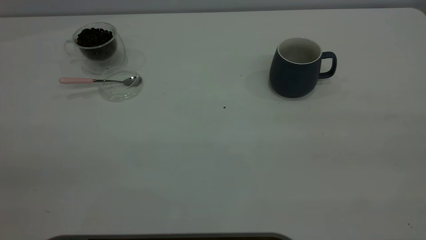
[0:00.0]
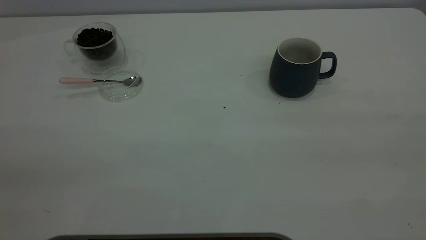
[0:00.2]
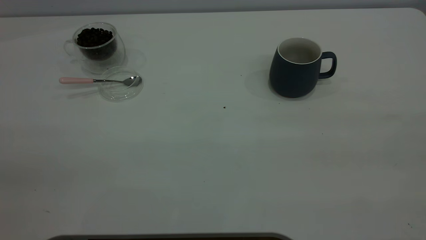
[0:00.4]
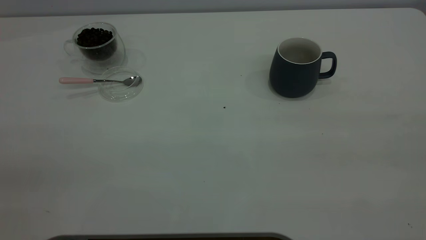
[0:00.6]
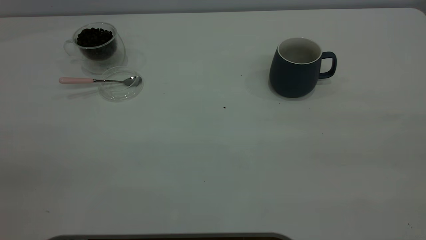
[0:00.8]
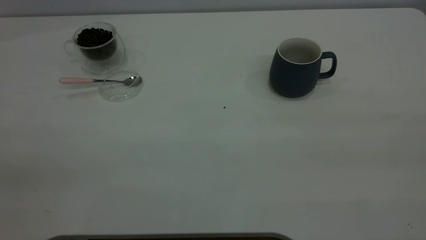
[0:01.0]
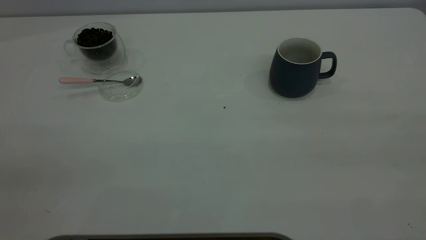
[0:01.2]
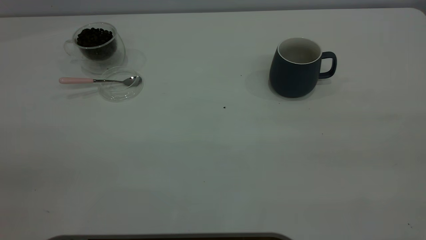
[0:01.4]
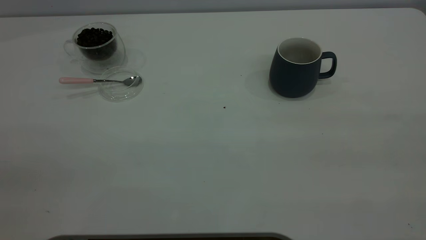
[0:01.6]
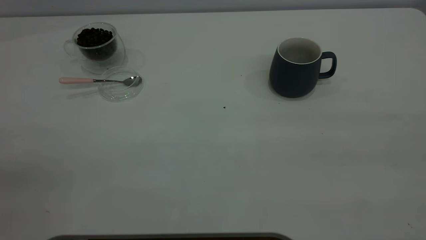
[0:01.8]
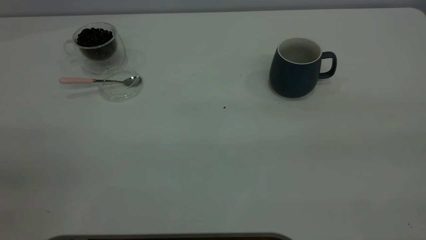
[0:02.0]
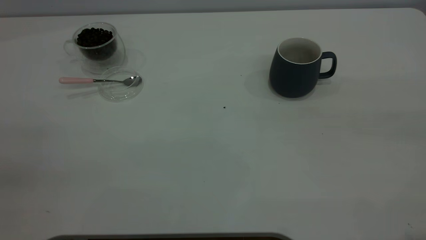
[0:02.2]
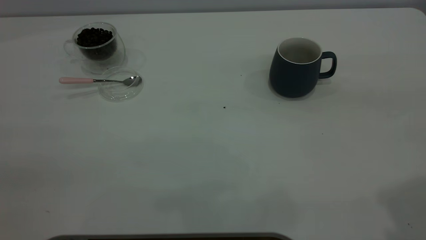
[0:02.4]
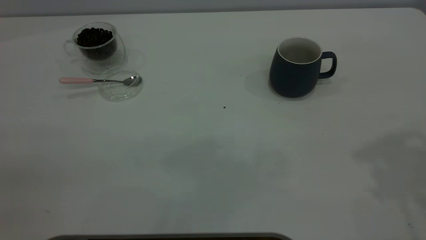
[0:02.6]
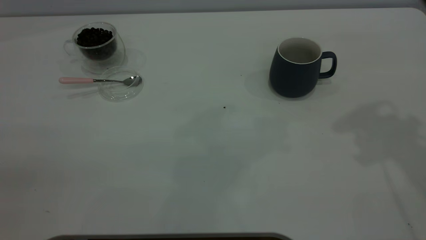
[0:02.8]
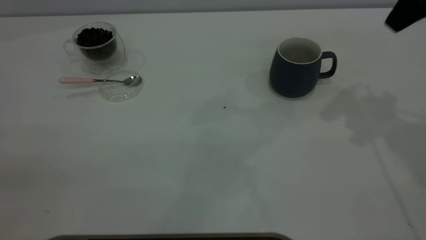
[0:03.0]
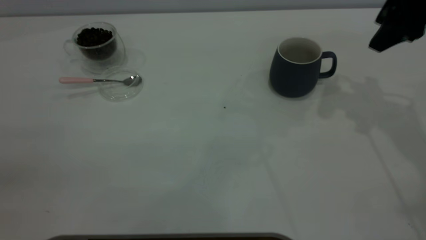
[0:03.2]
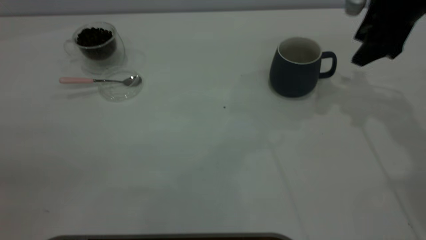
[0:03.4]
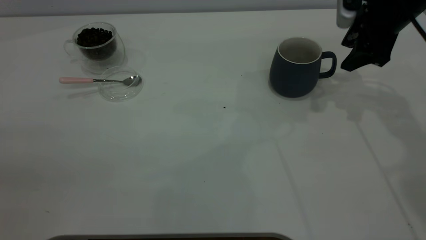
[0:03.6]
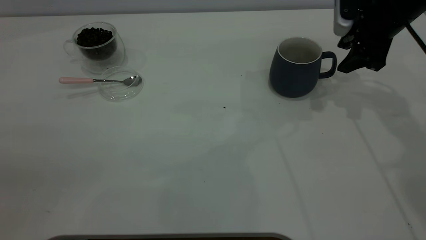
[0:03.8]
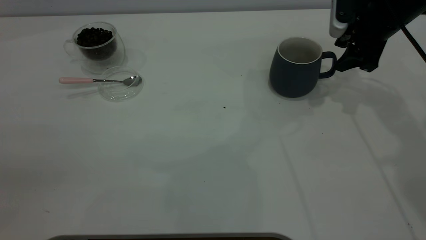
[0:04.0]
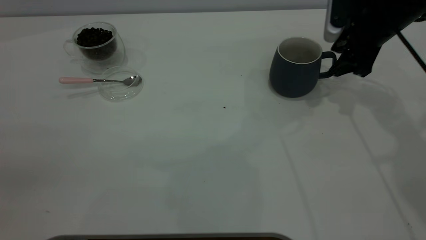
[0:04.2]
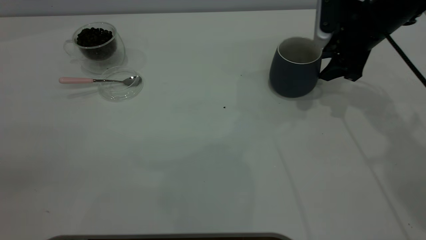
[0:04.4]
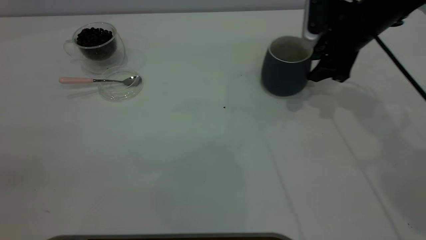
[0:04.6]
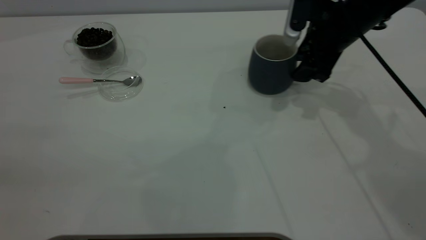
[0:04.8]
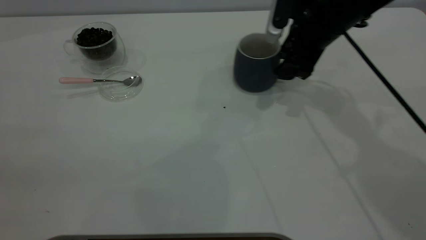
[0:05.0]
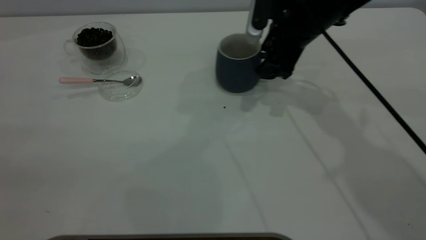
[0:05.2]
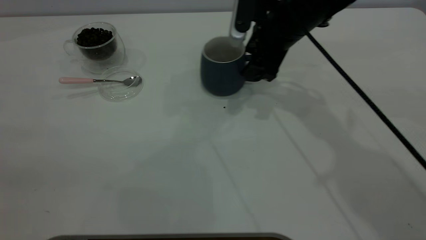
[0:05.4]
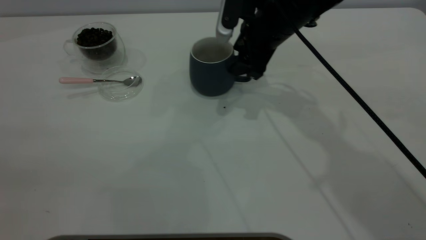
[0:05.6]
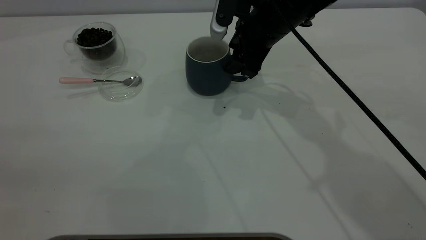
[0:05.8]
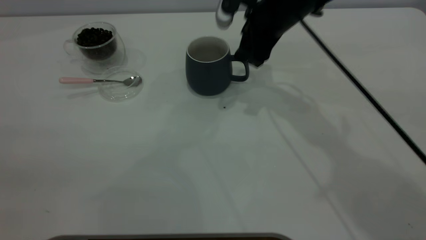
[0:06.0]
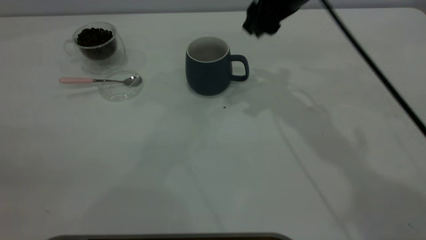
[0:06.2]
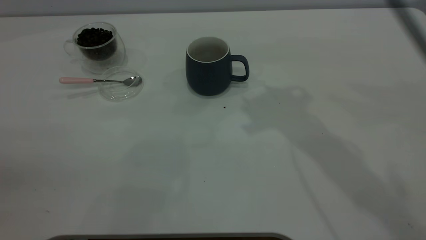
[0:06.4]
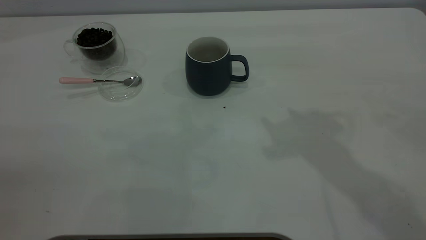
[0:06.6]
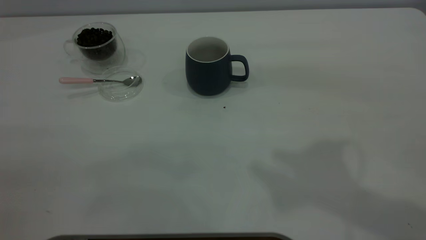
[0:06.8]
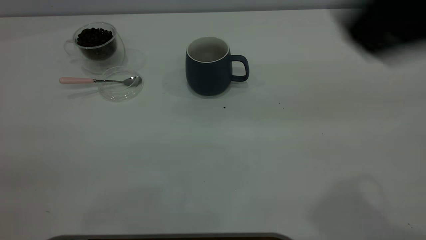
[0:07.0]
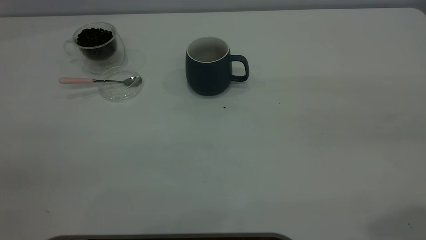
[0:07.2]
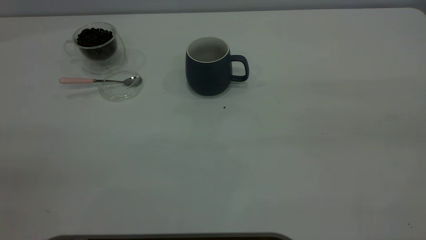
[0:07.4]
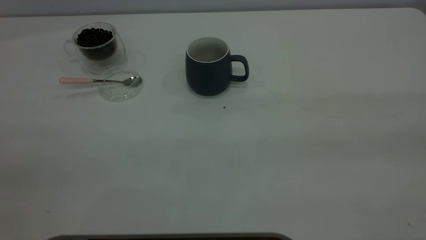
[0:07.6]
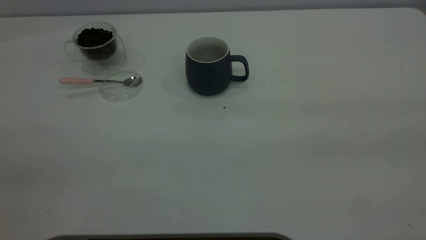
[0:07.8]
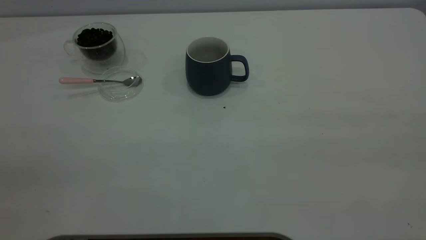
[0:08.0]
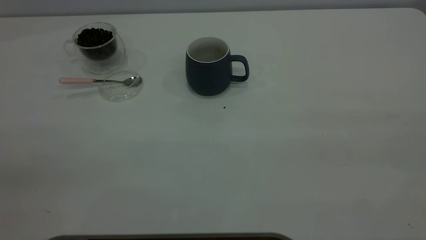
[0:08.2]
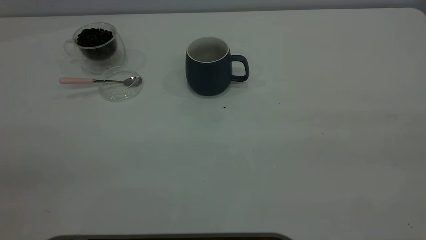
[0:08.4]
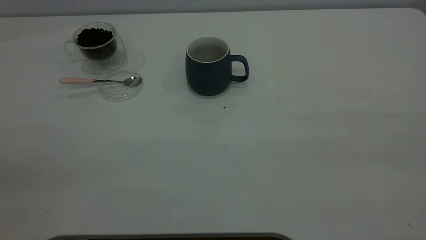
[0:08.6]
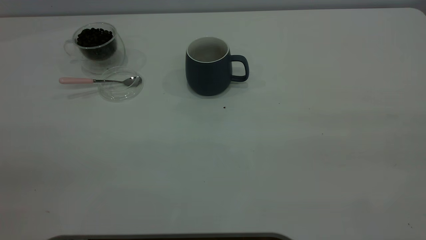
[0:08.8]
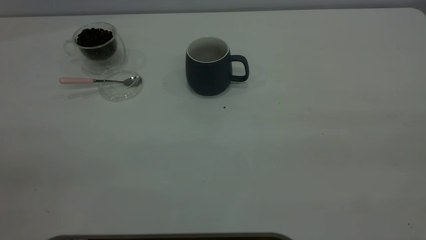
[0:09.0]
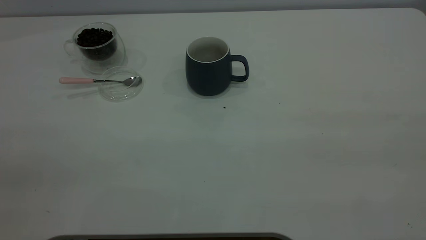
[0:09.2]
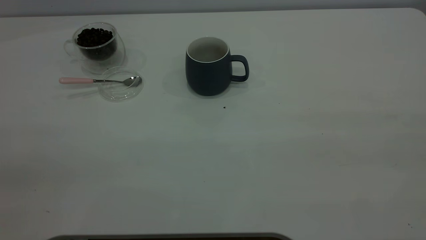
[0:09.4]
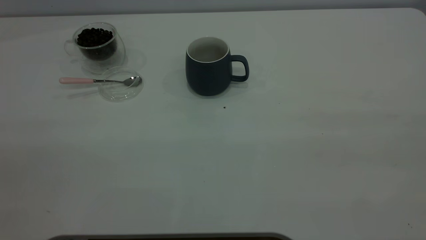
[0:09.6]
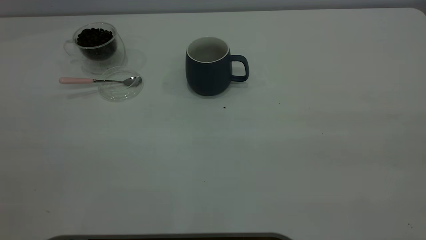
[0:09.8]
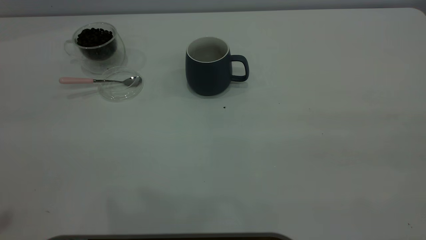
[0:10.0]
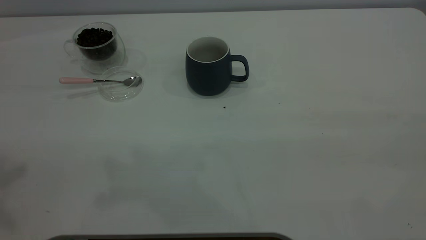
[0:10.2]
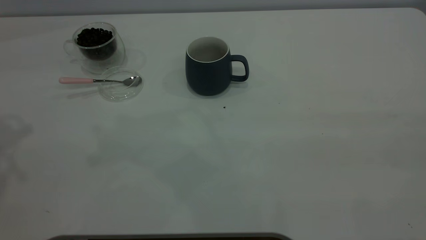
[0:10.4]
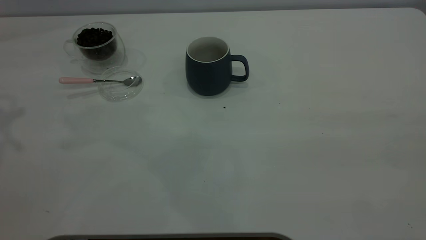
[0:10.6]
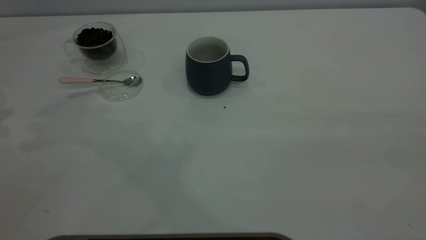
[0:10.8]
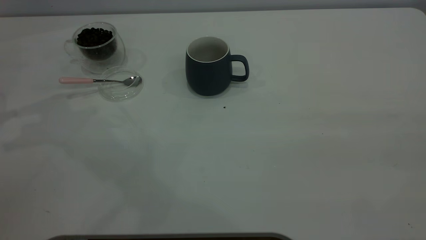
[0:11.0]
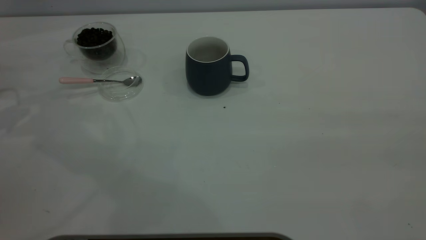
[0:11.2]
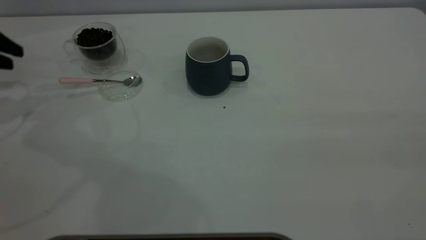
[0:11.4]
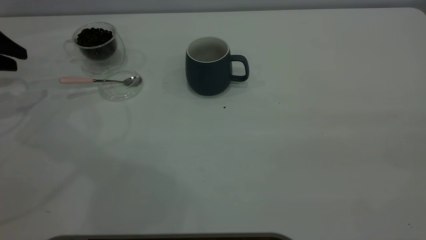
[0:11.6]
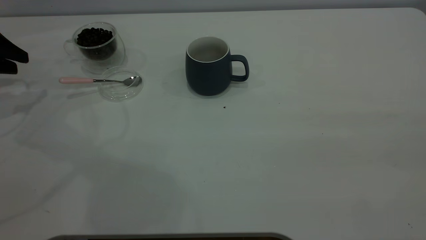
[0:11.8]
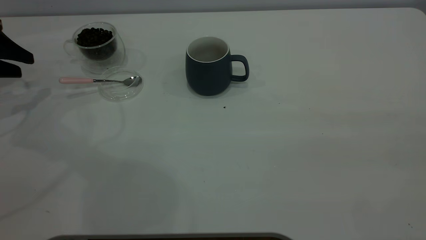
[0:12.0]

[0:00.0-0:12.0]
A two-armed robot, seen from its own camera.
Task of the whole recording: the right gripper place the grey cup in the center of the table, the left gripper take the pink spoon from the cup lid and scoop out the coffee beans from the coffee cup and put them into the grey cup, the left gripper put the spoon back into the cup lid.
Step, 0:00.0 to 0:06.2: Move the cup to the center of view.
0:00.0 to 0:01.6: Neither gripper changes place.
0:01.6 to 0:03.0: The right gripper travels forward by about 35 cm.
0:03.0 to 0:04.4: The right gripper shifts roughly 15 cm downward and forward.
0:04.4 to 0:06.0: The right gripper travels to the left by about 15 cm.
0:06.0 to 0:07.6: The right gripper moves backward, to the right and upward, roughly 50 cm.
0:10.4 to 0:12.0: The left gripper moves downward and forward, approximately 25 cm.

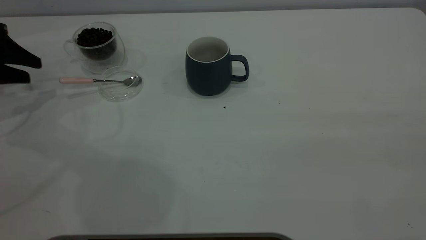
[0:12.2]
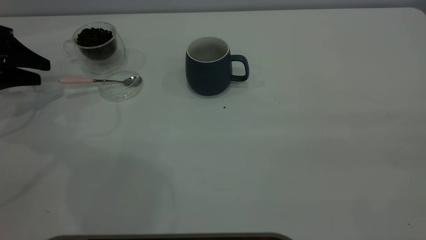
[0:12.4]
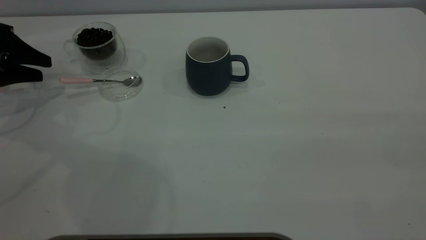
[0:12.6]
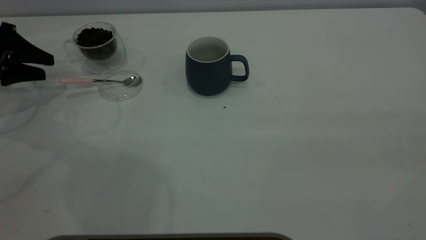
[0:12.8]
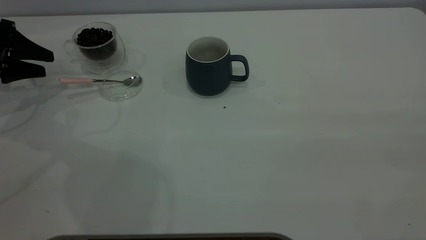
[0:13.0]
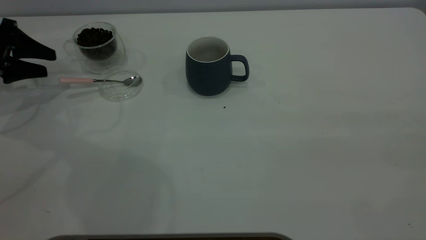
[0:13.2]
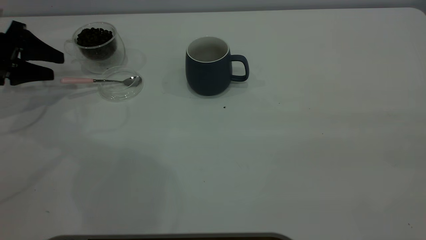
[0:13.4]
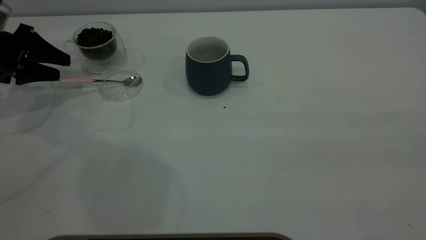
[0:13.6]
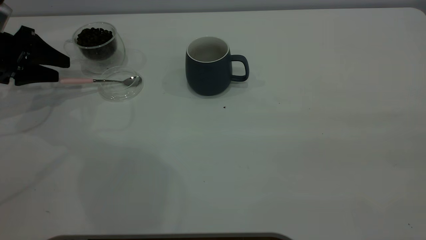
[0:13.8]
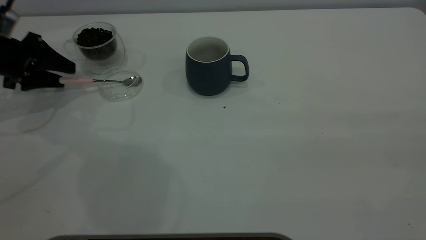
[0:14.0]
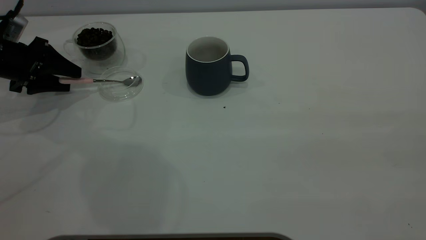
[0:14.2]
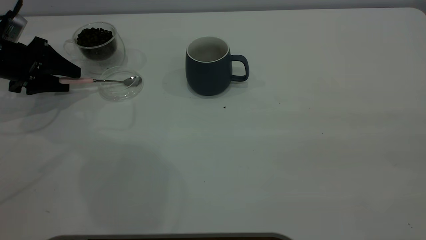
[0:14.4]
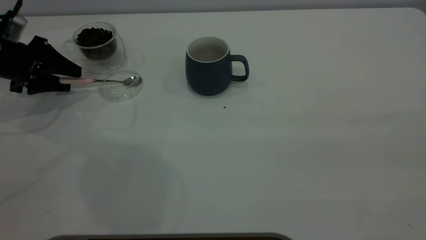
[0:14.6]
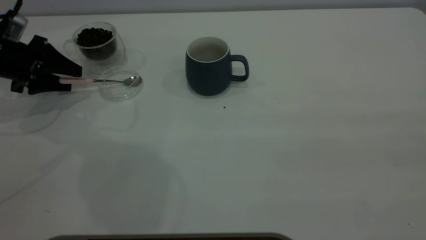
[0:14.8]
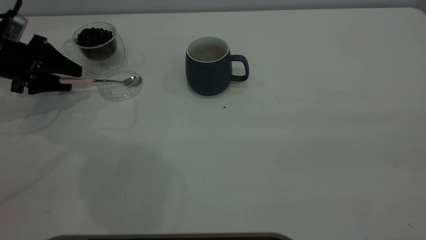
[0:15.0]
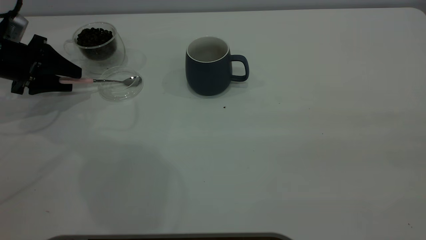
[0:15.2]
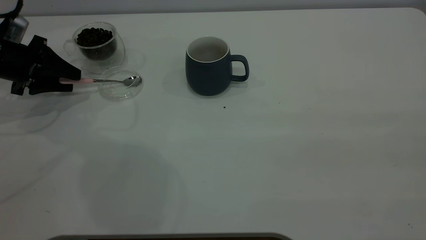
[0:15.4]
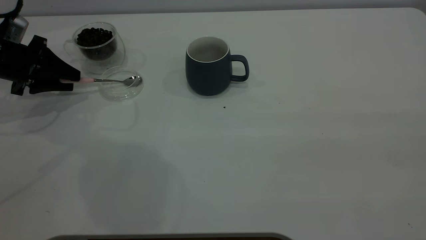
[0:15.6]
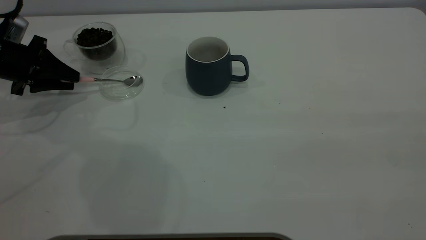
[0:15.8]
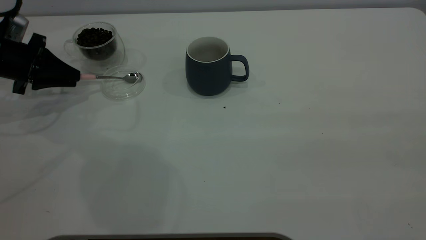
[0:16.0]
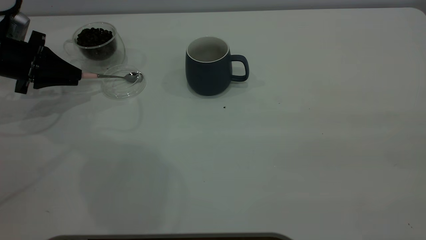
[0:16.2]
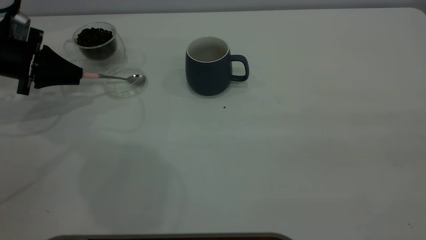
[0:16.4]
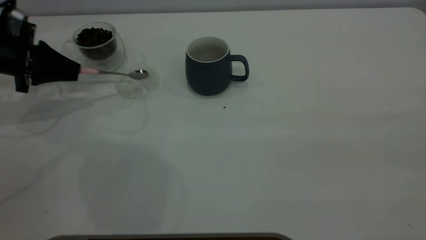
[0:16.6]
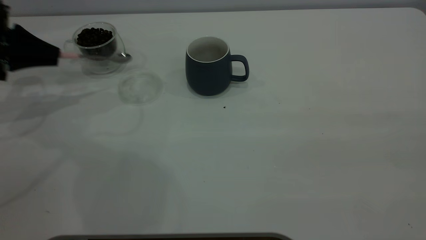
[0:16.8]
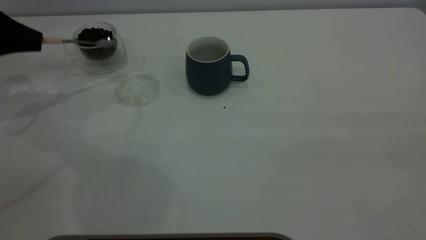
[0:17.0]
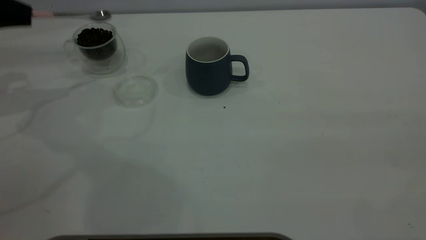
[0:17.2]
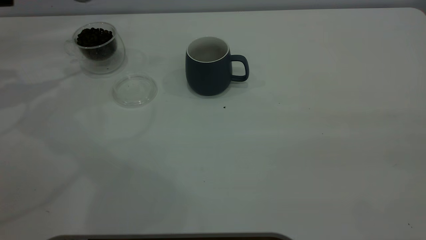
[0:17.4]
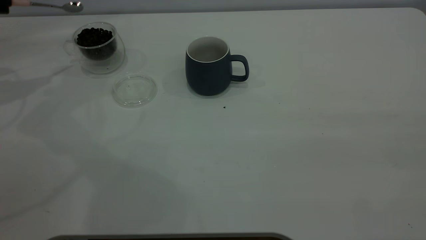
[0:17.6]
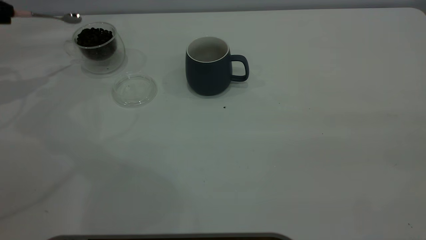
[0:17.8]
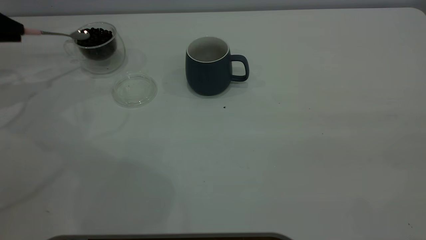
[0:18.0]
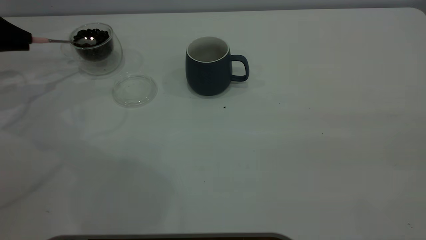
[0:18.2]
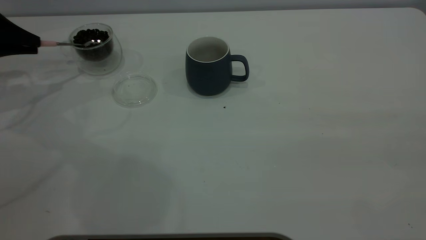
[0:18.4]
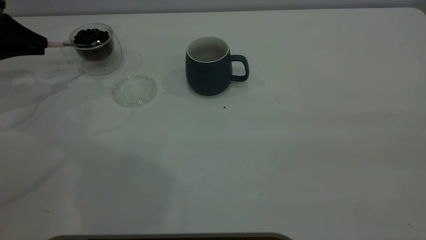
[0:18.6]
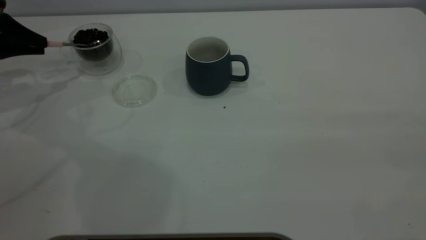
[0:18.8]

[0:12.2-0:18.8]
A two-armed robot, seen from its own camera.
Task of the whole recording: the right gripper place the grey cup in the center of the table, the left gripper take the pink spoon from the cup lid and scoop out the coffee beans from the coffee cup and put them into the grey cup, the left gripper put the spoon back into the cup lid.
Step, 0:12.2 to 0:16.6: Pick up the spoon.
0:12.2 to 0:15.4: The grippers move only a little.
0:15.4 to 0:17.2: The left gripper travels upward by some 10 cm, and closes up.
0:17.2 to 0:18.8: The left gripper goes some 5 cm downward.
